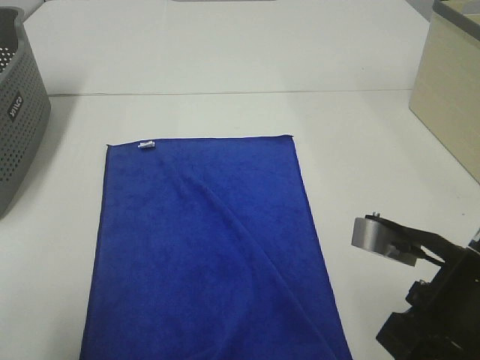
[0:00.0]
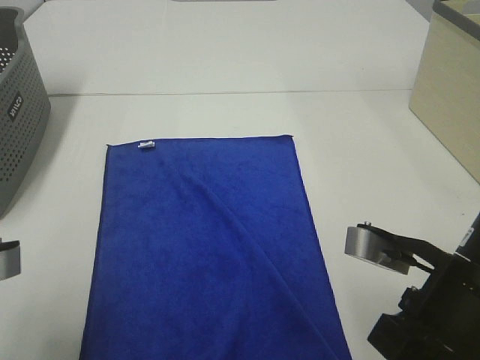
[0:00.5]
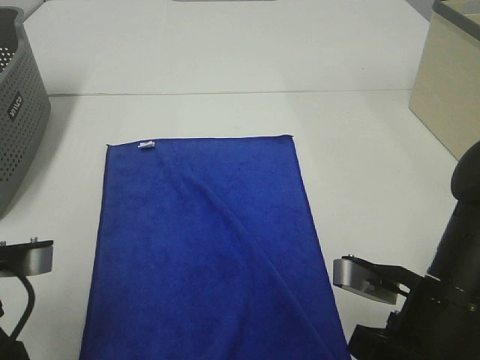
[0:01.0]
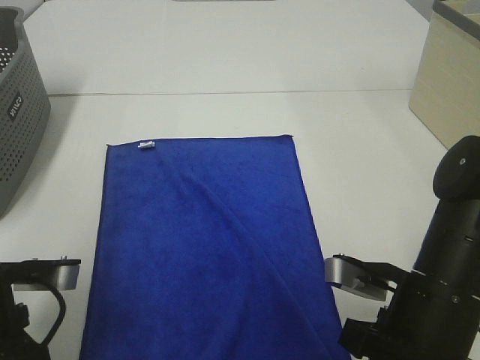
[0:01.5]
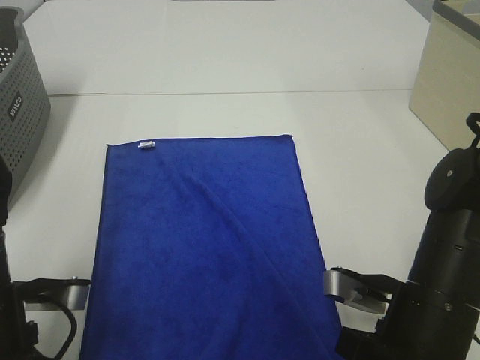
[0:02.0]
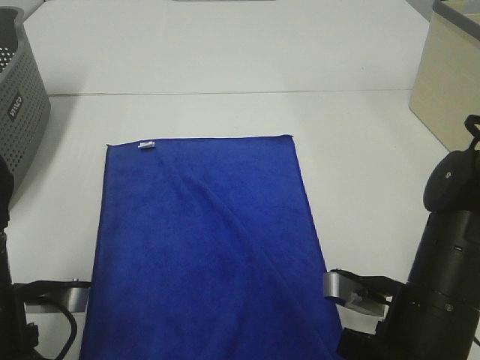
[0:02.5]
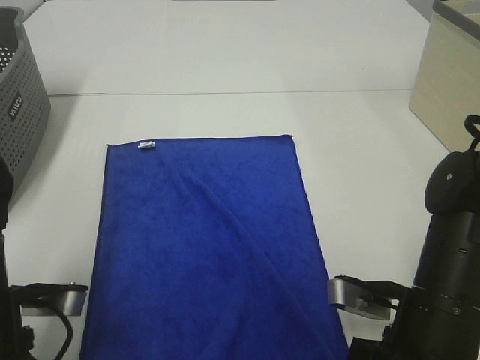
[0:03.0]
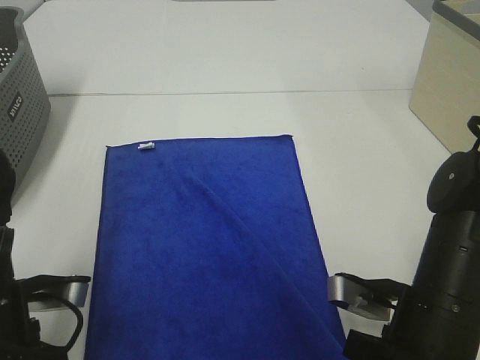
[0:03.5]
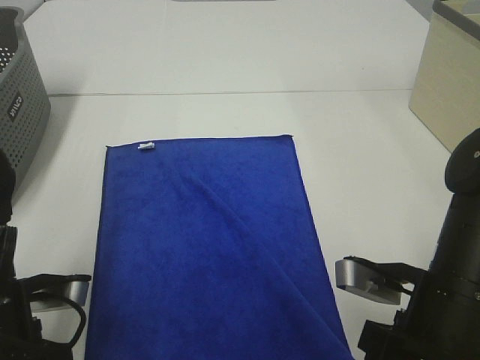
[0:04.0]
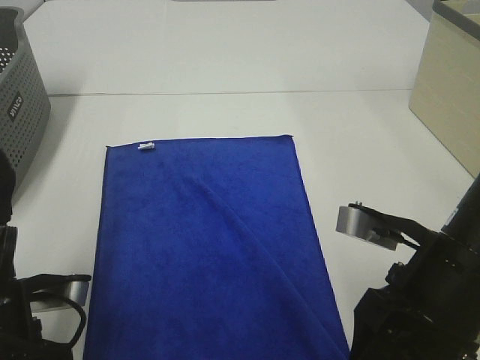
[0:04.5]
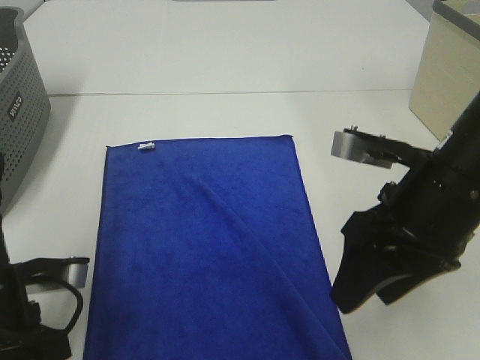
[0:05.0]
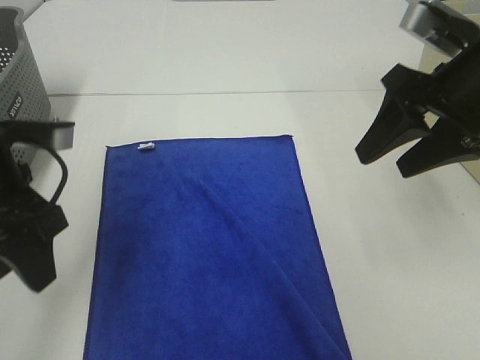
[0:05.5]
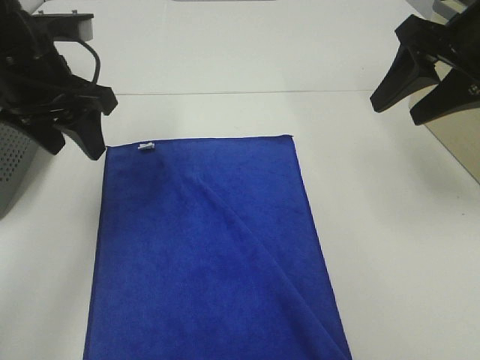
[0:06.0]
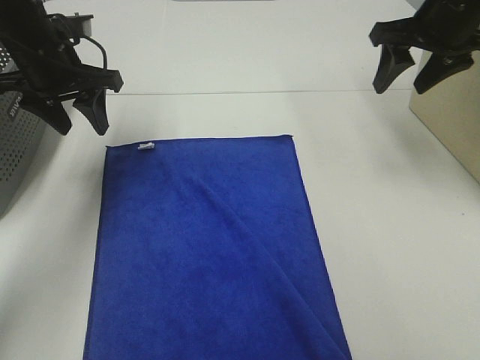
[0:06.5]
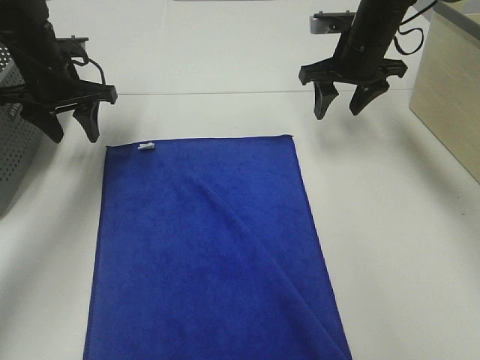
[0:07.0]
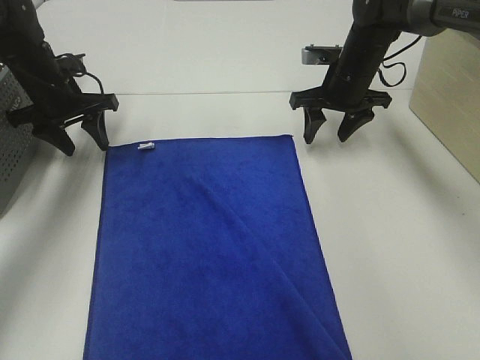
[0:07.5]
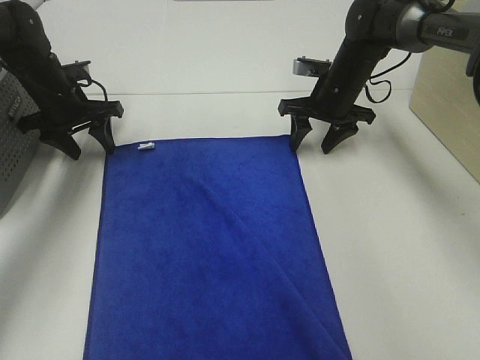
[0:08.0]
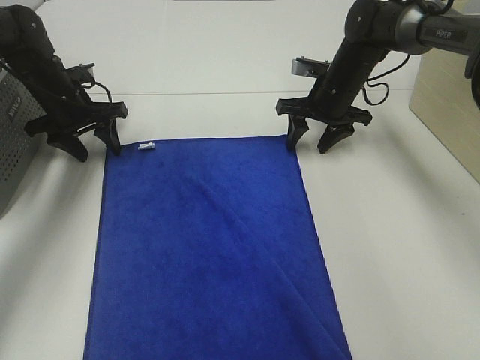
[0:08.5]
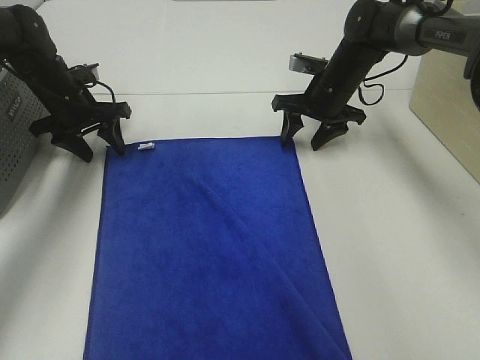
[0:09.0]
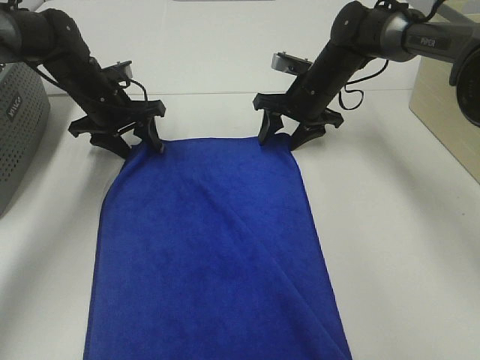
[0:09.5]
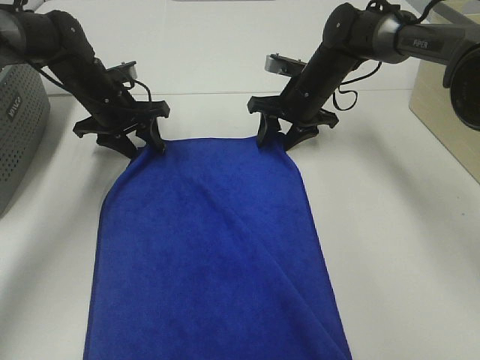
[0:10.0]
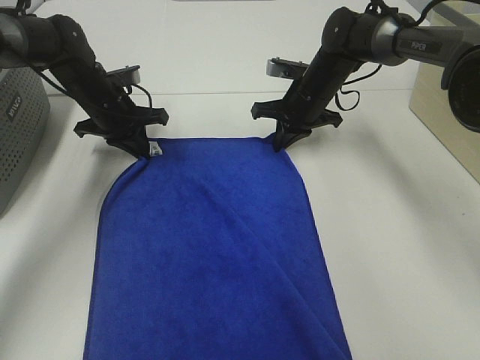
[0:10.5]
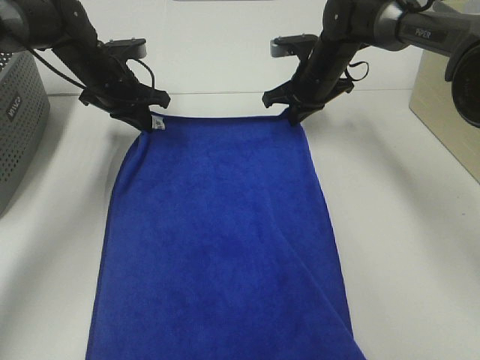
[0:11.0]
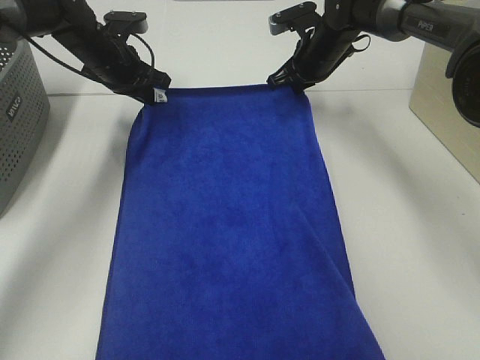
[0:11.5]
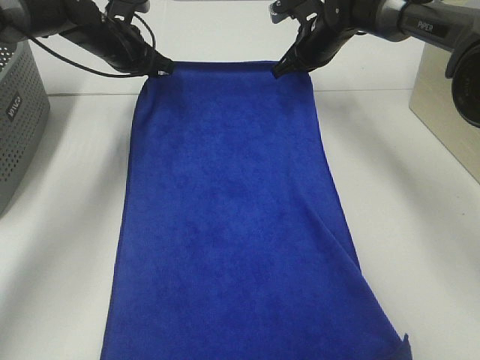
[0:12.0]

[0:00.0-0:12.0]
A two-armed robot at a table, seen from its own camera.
Task of the whole recording: Remove the towel and place it.
Step, 0:00.0 to 0:07.0: Left hand:adjust the blue towel.
Step, 0:00.0 to 0:07.0: Right hand:adjust the blue towel.
0:00.0 to 0:02.0: The right gripper travels downward by about 5 cm. Meanwhile the left gripper shifts roughly 15 cm downward and forward.
0:02.0 to 0:04.0: The right gripper opens. Meanwhile the left gripper opens its fingers.
0:04.0 to 0:06.0: The right gripper travels forward, upward and to the right by roughly 25 cm; the left gripper shifts approximately 20 cm forward and upward.
0:06.0 to 0:08.0: The right gripper is displaced downward, forward and to the left by approximately 25 cm. The left gripper goes some 20 cm forward, downward and to the left.
0:08.0 to 0:10.0: The left gripper is displaced to the right by some 5 cm.
0:10.0 to 0:12.0: Both grippers travel together upward and forward, approximately 10 cm. The left gripper closes. Meanwhile the right gripper closes.

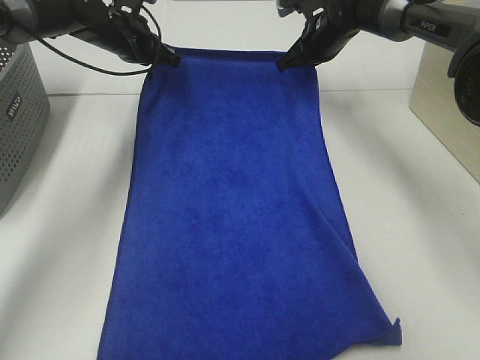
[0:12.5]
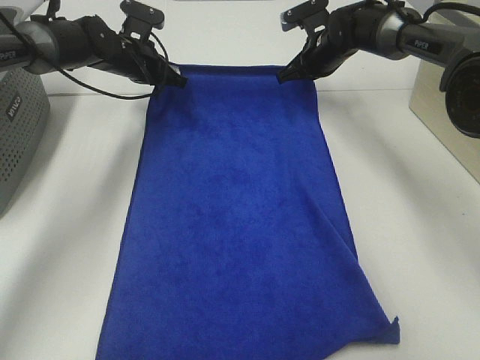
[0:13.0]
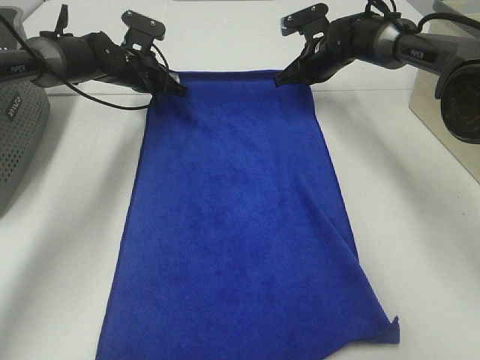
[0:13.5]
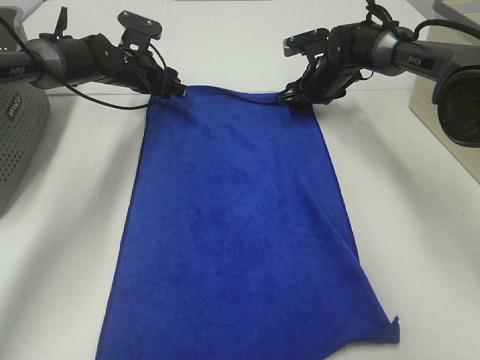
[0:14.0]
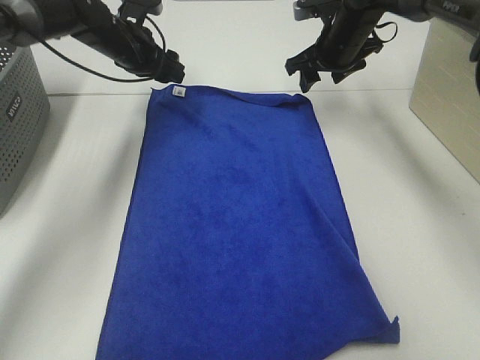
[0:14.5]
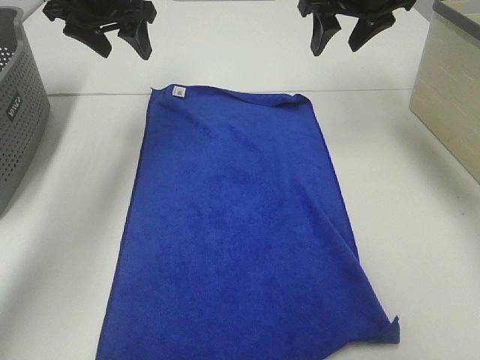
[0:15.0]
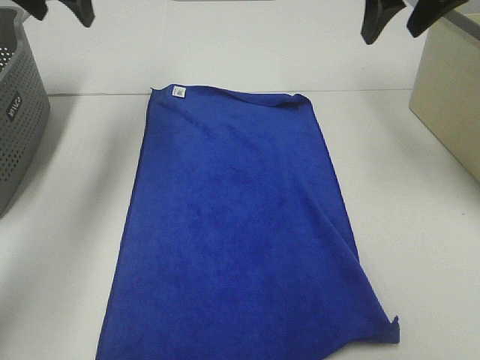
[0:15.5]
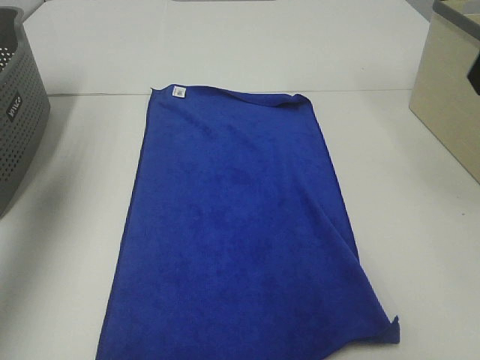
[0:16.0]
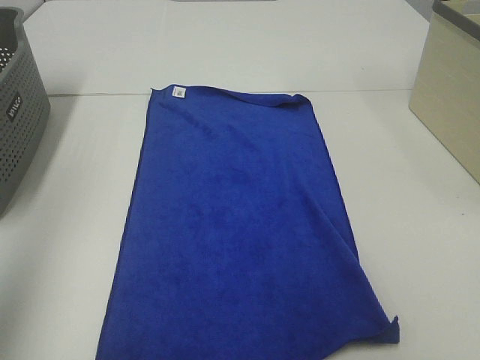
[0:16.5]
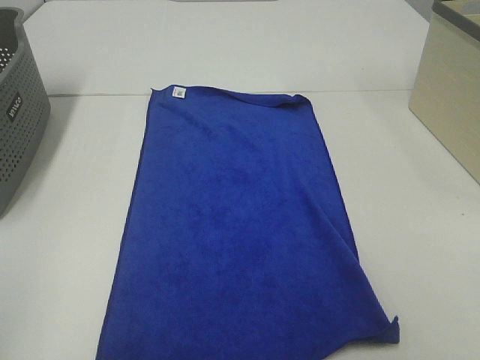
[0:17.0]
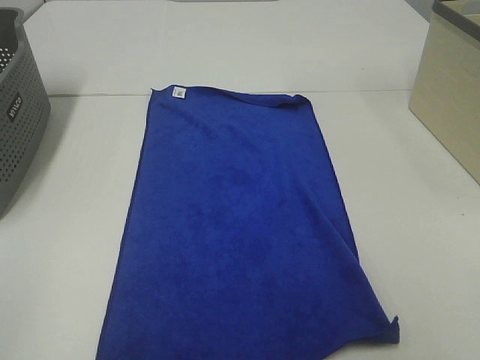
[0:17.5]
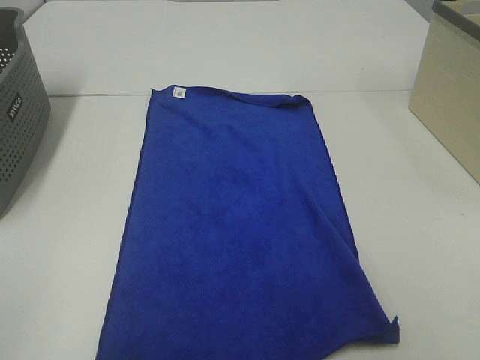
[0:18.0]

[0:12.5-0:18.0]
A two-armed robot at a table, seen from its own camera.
Task of the whole recording: Remove the towel and place it.
0:12.5 to 0:14.5: The right gripper reaches about 5 cm downward, then returns, and opens. The left gripper opens up.
0:14.5 to 0:16.0: The left gripper is displaced backward, upward and to the left by some 35 cm, while the right gripper moves backward and upward, about 35 cm.
0:16.0 to 0:18.0: The left gripper is displaced backward by roughly 30 cm.

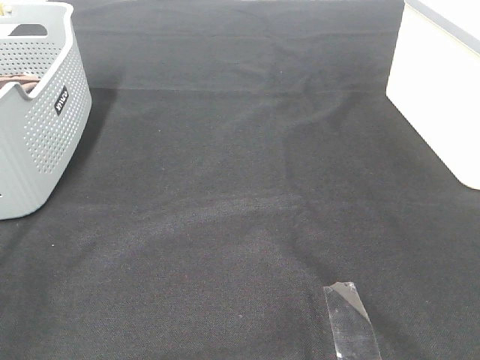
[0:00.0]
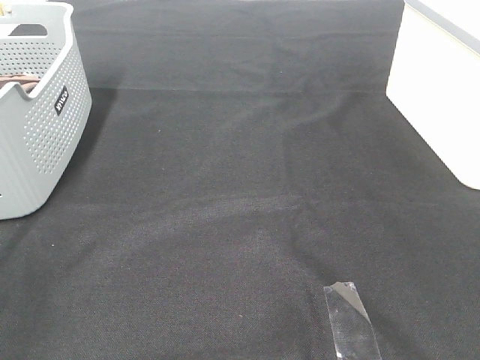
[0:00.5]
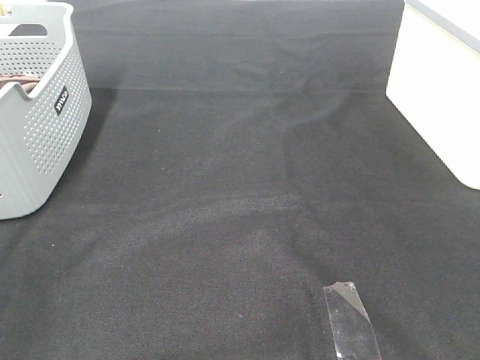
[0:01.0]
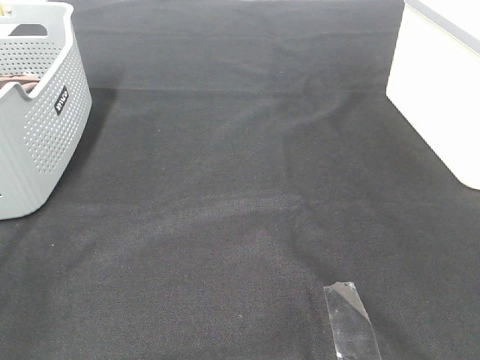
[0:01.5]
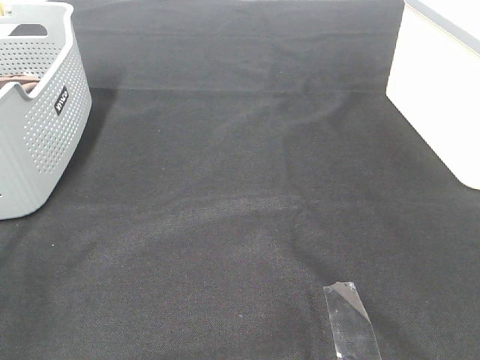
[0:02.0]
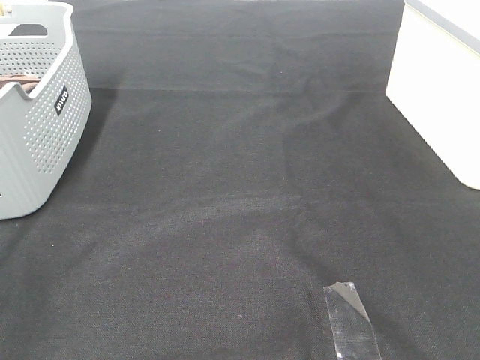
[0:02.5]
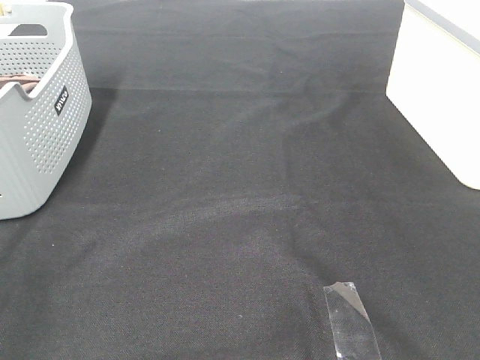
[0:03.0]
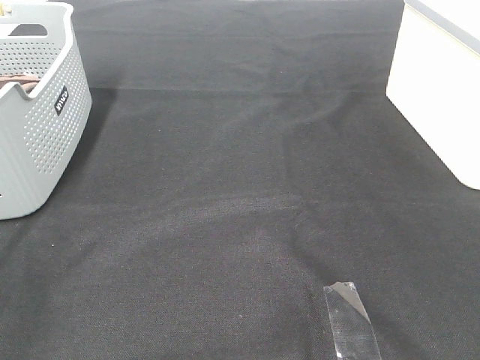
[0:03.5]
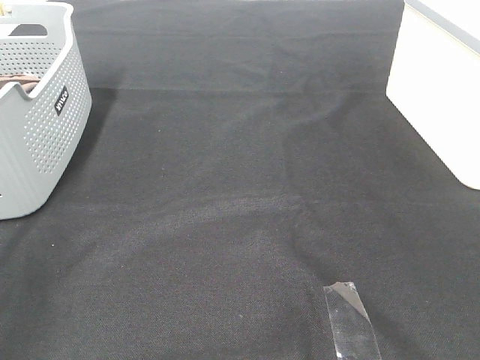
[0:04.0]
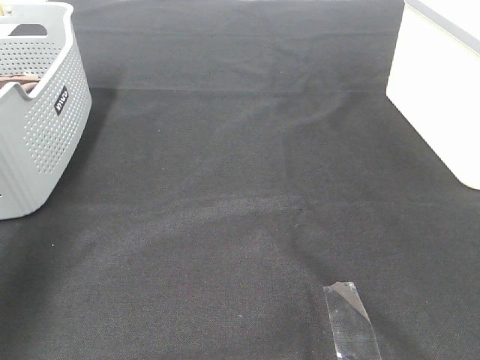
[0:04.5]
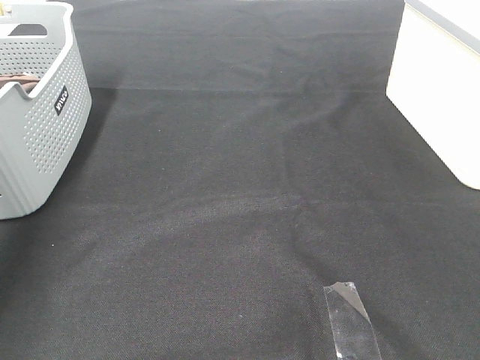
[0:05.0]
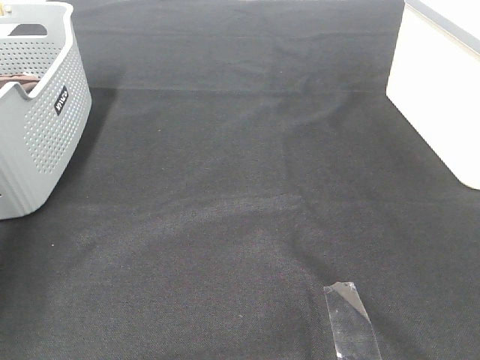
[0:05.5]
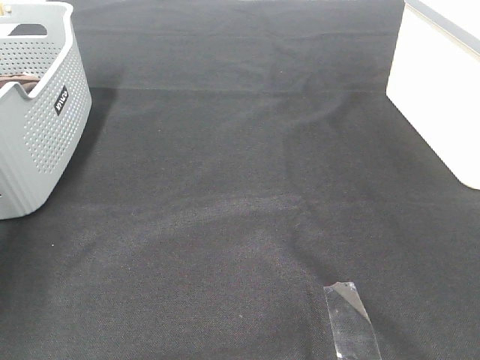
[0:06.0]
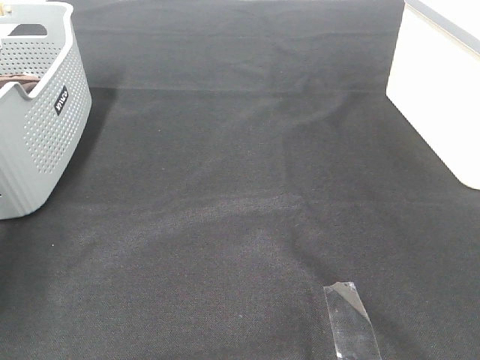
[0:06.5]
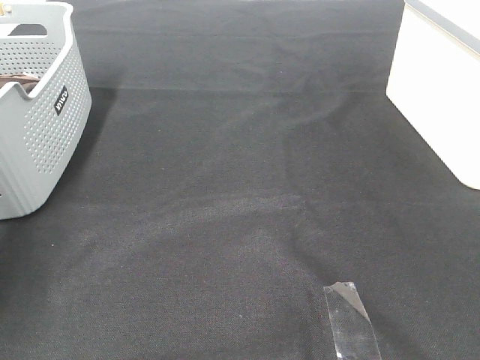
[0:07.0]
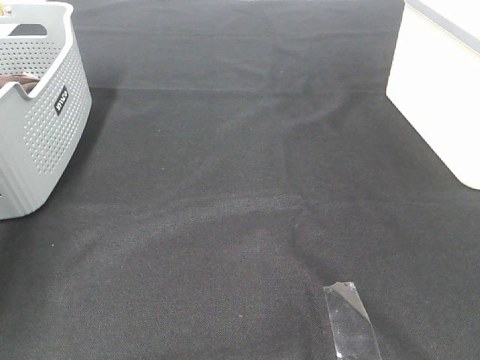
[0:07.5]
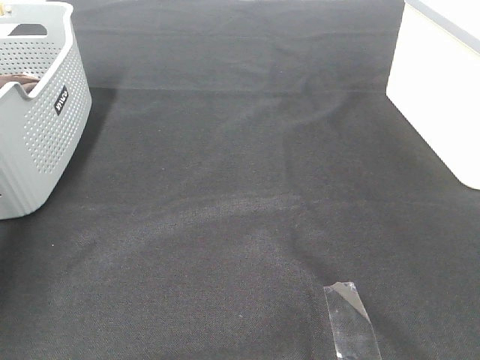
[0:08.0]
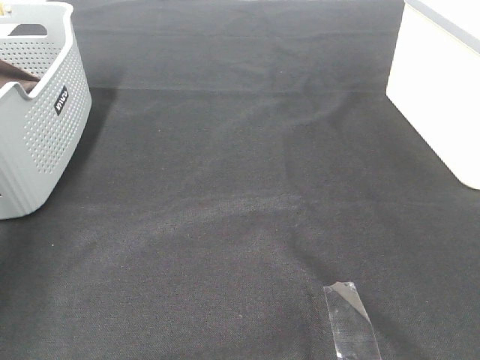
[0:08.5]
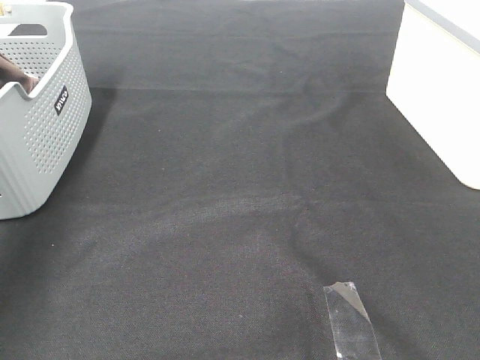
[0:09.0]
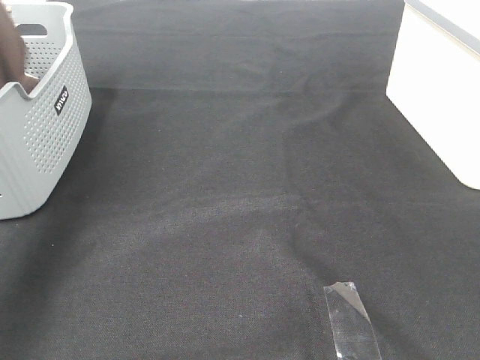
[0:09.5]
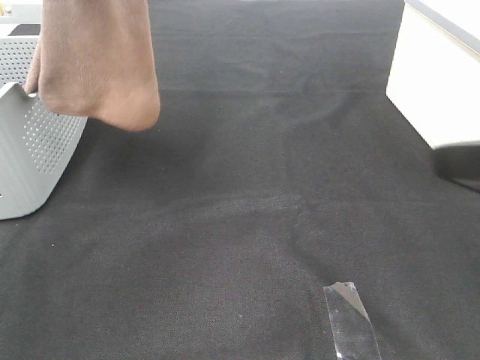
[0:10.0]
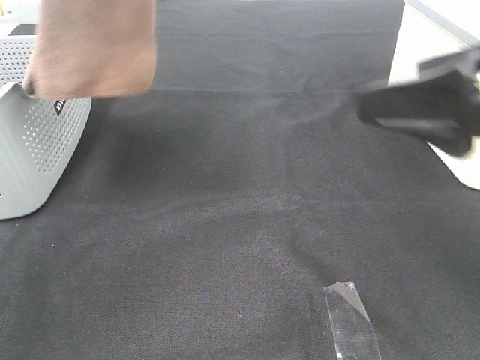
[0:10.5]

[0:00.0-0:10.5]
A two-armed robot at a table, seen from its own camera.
Task of the whole recording: Remove the towel and place it.
0:00.0 to 0:02.0: Both grippers stay put.
0:04.0 to 0:06.5: The left gripper goes some 40 cm forward.
0:08.5 to 0:10.5: The left gripper is displaced to the right, upward and backward by about 30 cm. The right gripper moves forward and to the left, approximately 20 cm.
